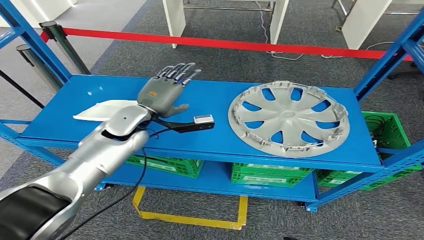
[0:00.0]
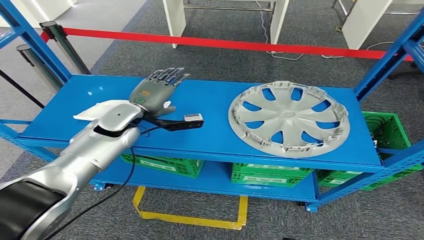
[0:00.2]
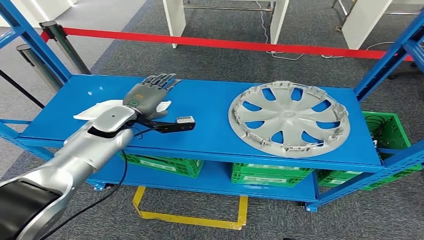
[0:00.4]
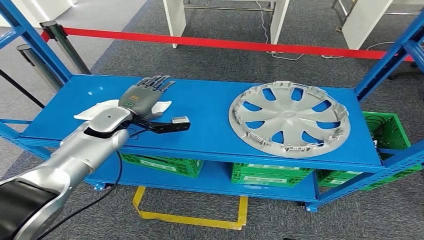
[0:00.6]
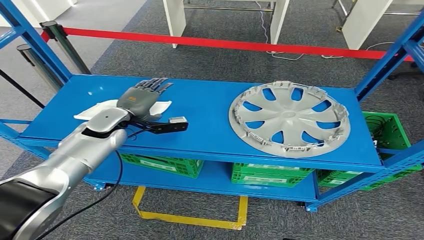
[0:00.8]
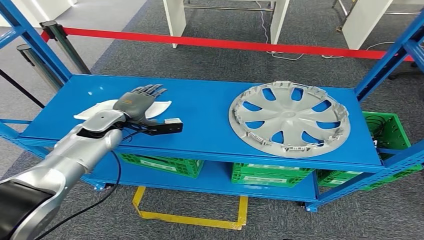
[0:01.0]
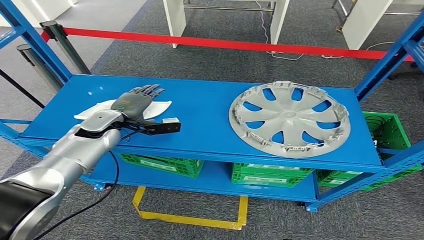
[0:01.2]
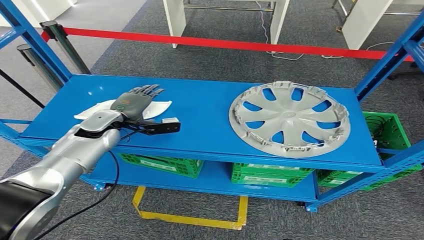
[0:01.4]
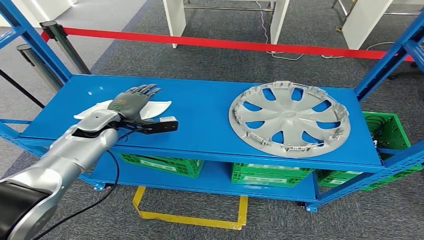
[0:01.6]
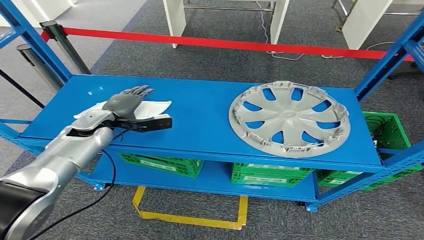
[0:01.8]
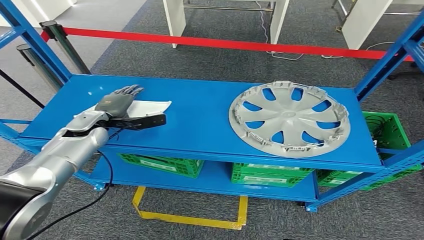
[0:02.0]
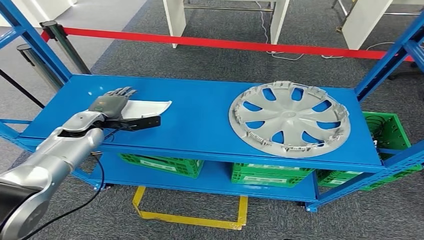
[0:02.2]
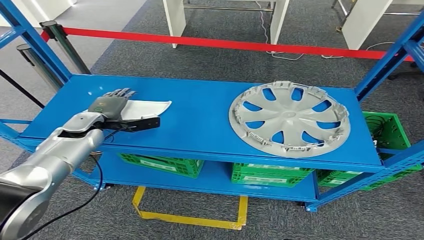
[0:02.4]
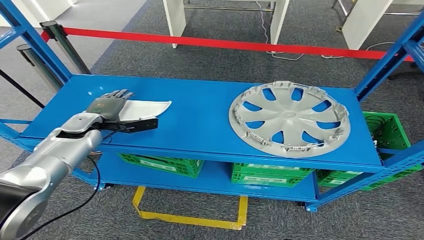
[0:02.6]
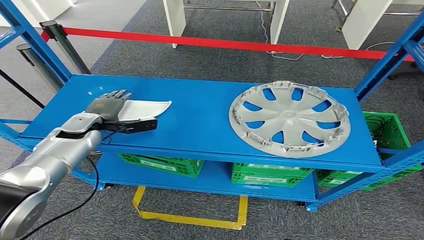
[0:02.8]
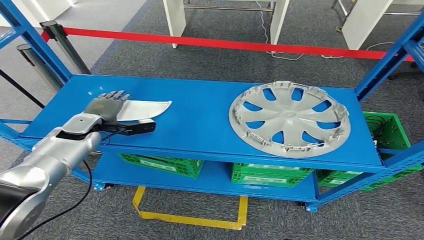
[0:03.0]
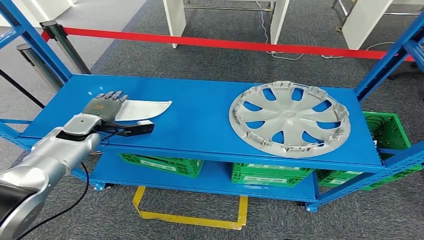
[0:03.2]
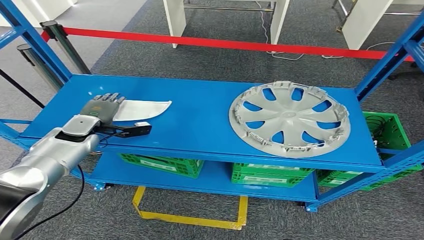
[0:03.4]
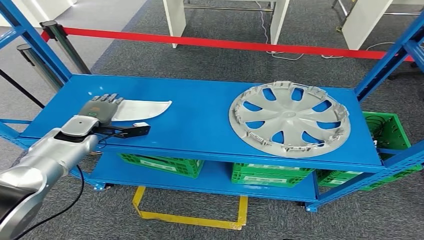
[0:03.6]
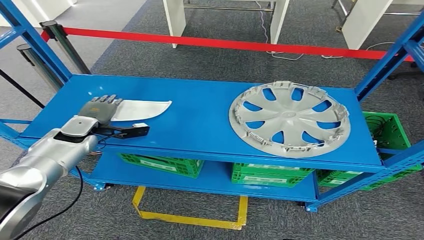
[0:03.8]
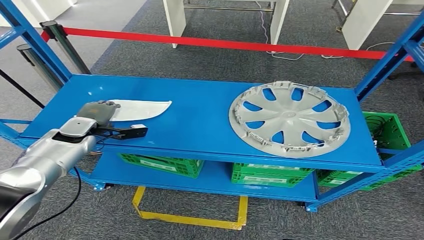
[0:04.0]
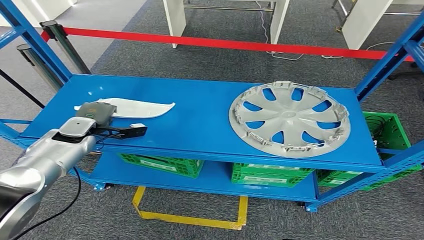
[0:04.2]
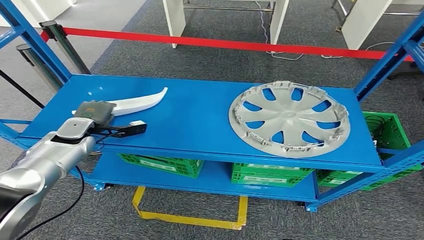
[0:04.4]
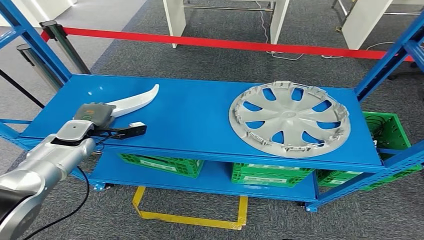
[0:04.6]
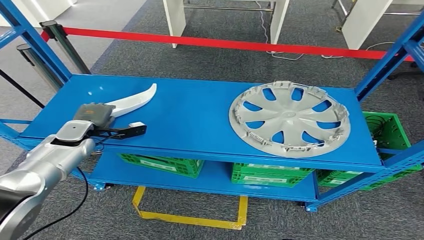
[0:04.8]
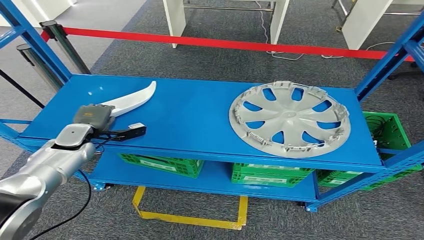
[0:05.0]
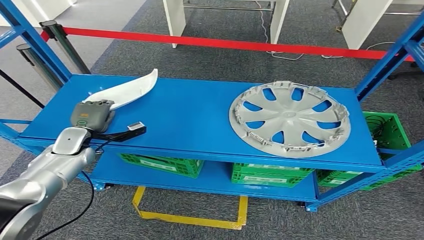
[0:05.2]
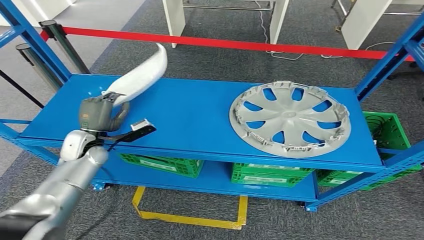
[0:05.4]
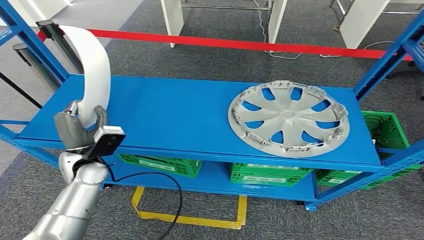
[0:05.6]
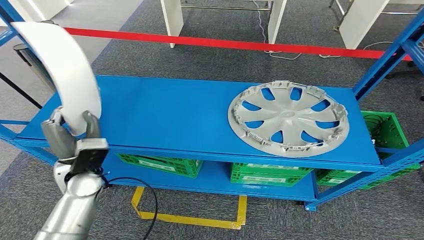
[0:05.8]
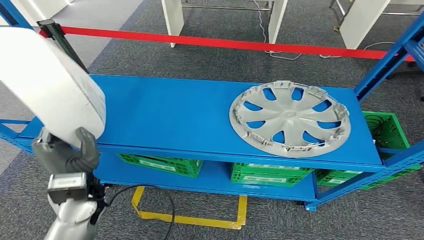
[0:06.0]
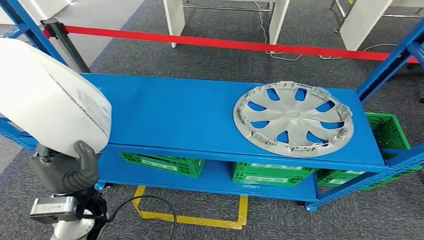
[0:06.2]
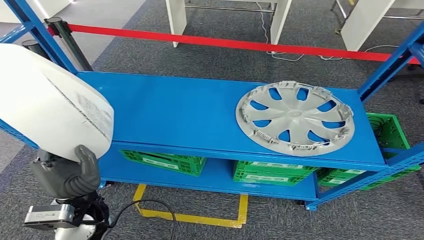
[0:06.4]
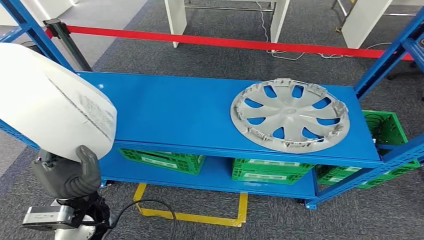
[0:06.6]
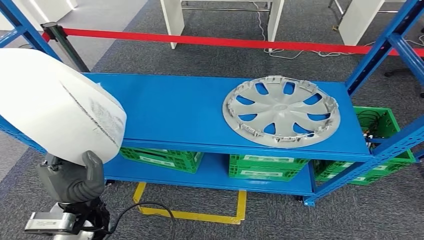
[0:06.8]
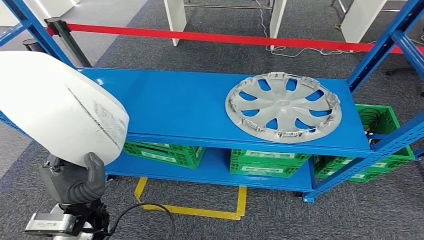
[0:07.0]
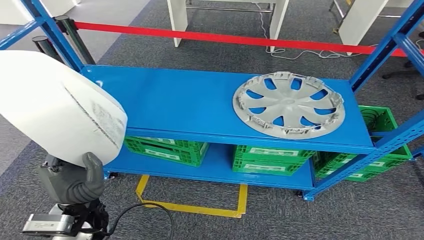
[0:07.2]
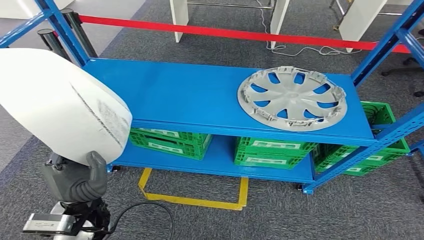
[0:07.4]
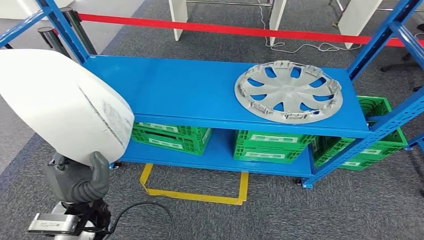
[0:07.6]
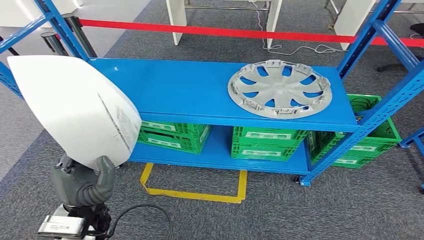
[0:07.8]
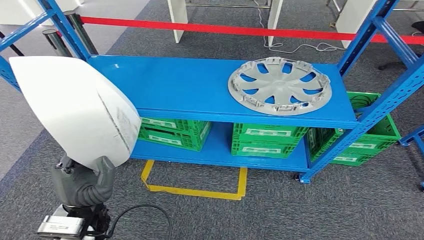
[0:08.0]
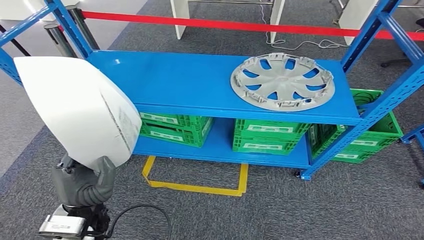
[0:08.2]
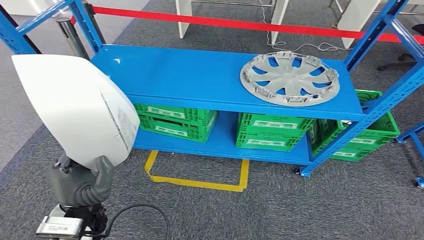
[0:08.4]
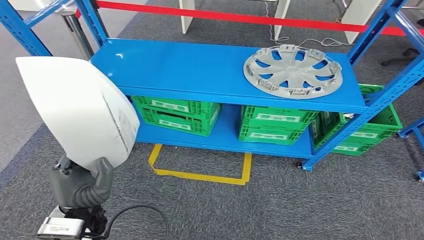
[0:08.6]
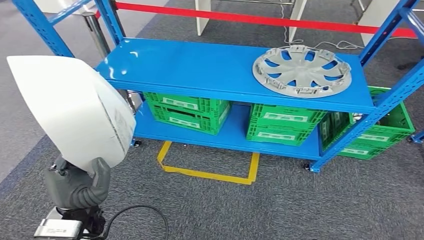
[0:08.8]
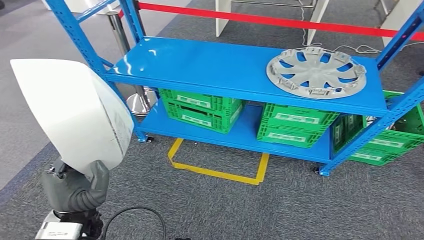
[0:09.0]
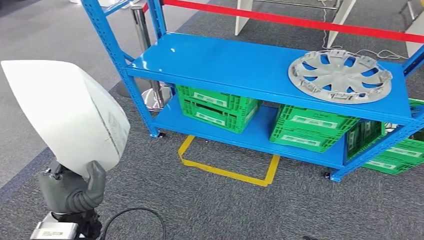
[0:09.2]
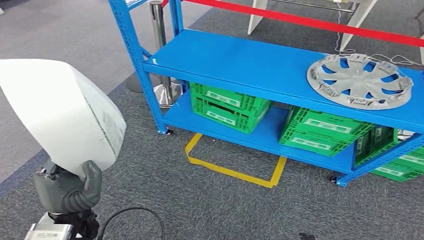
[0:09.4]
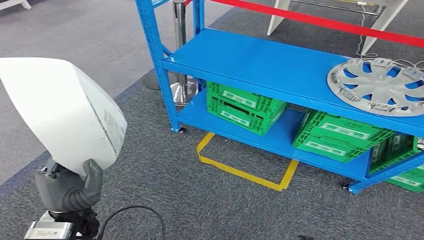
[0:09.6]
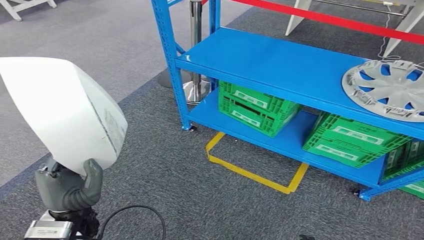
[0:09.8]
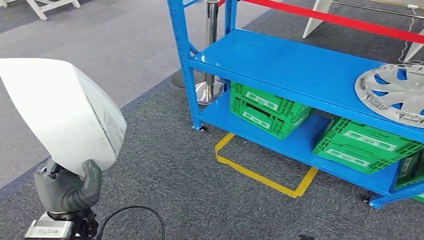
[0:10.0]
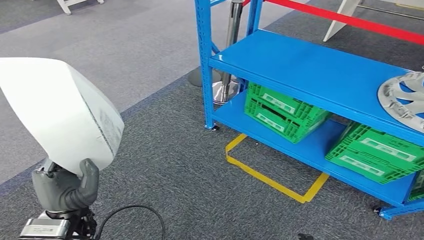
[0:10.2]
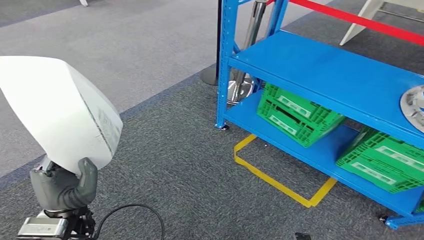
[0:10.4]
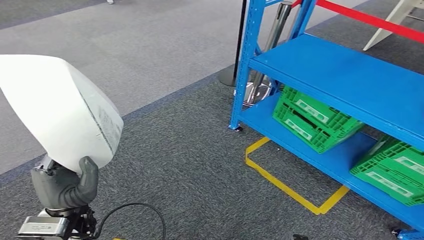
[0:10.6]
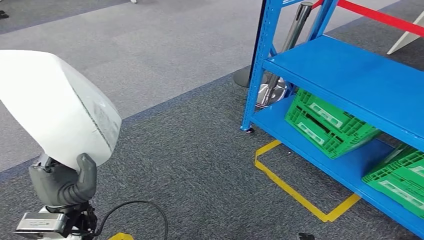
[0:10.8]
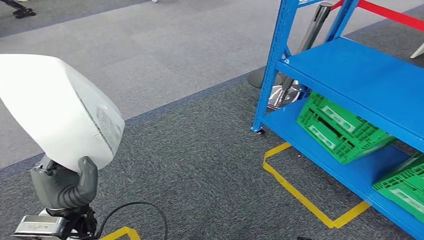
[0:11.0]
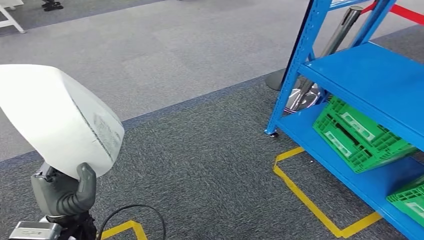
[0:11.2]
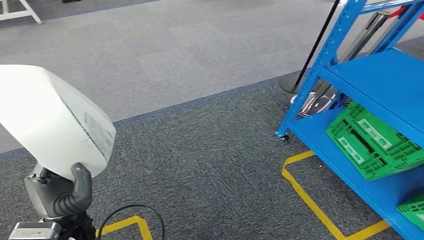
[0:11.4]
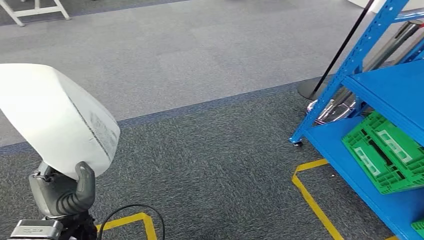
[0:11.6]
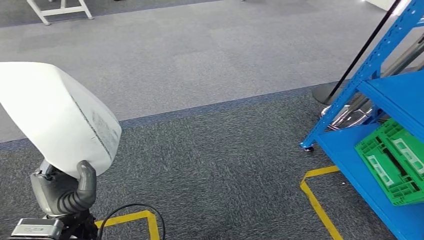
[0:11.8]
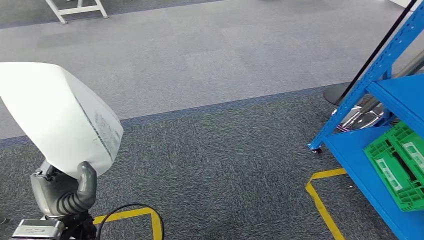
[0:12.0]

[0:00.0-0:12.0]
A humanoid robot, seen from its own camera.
Step, 0:00.0 to 0:06.2: Pick up the small component from the shelf.
0:00.0 to 0:01.6: The left hand heads to the left, covering roughly 10 cm.
0:01.6 to 0:03.0: The left hand heads to the left, covering roughly 5 cm.
0:03.0 to 0:04.4: The hands move only a little.
0:04.4 to 0:06.0: The left hand moves backward and to the right, approximately 20 cm.

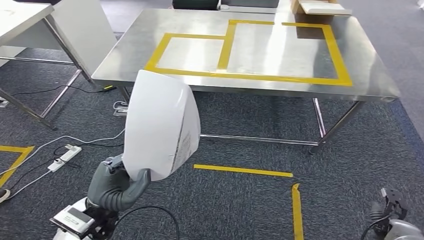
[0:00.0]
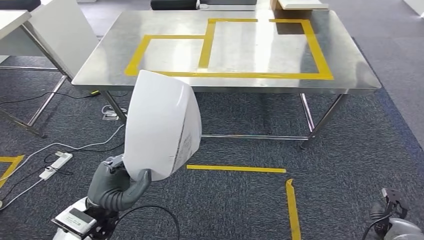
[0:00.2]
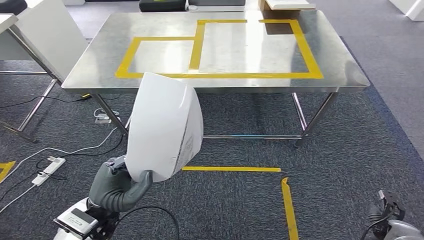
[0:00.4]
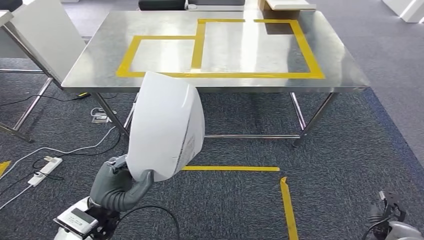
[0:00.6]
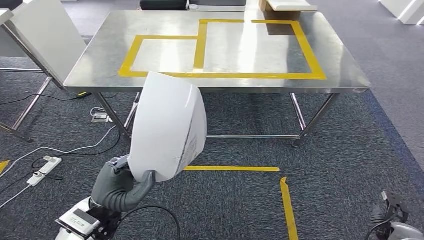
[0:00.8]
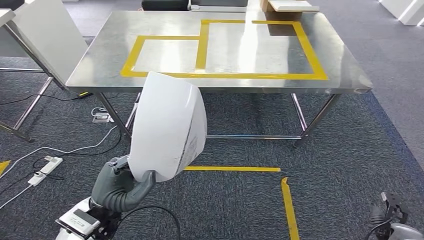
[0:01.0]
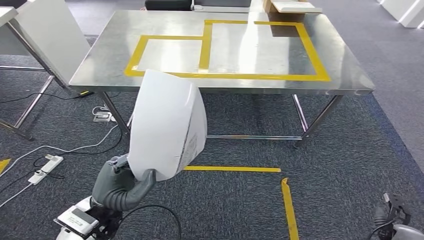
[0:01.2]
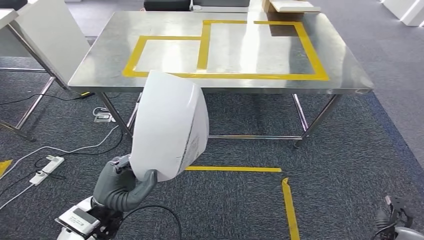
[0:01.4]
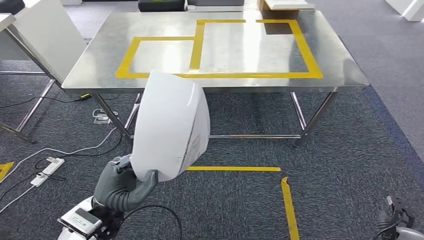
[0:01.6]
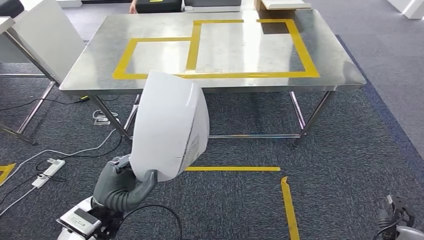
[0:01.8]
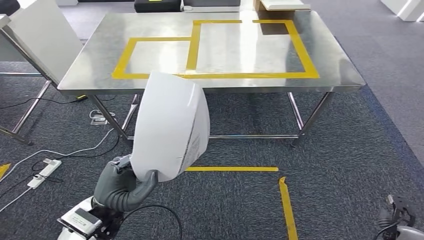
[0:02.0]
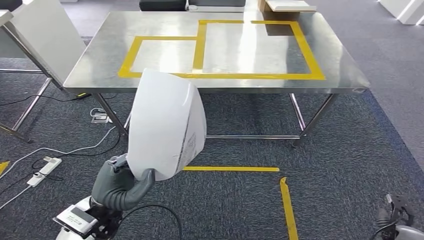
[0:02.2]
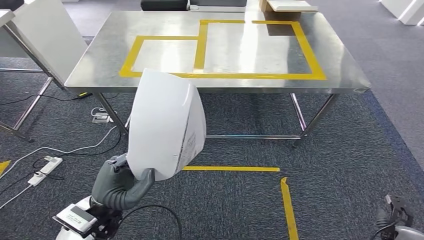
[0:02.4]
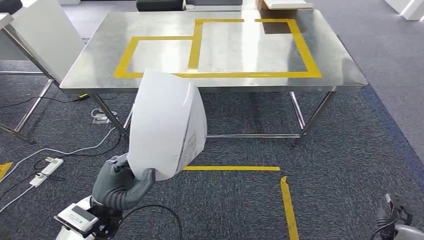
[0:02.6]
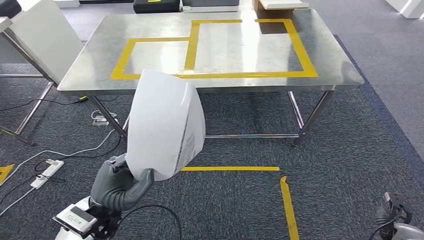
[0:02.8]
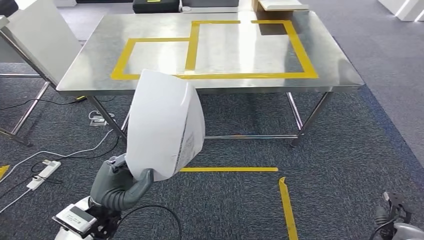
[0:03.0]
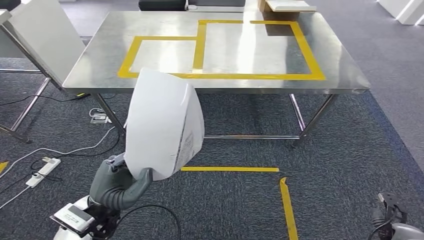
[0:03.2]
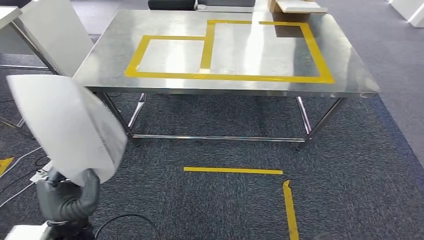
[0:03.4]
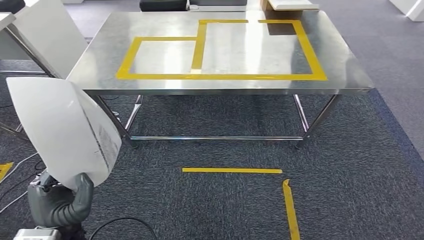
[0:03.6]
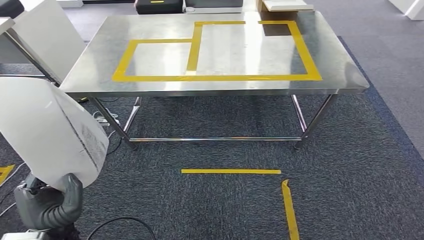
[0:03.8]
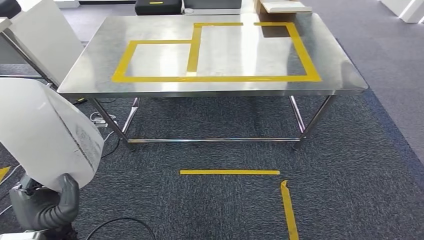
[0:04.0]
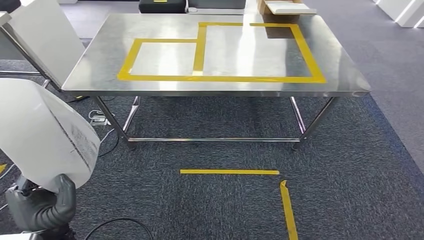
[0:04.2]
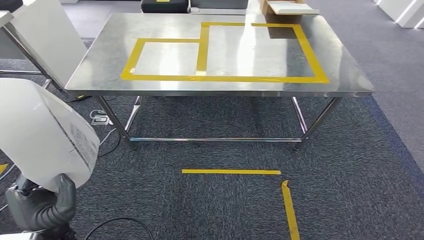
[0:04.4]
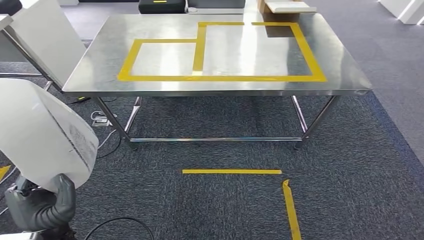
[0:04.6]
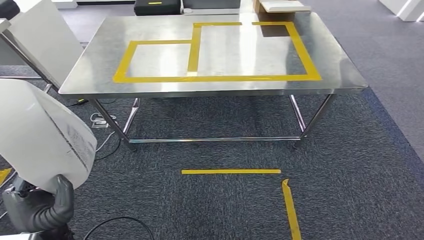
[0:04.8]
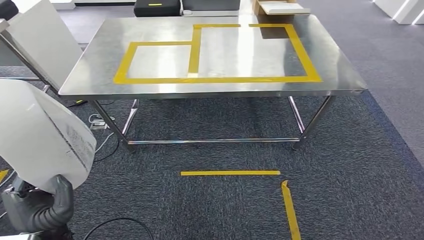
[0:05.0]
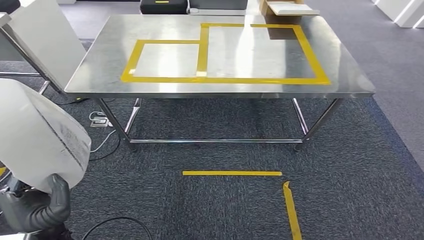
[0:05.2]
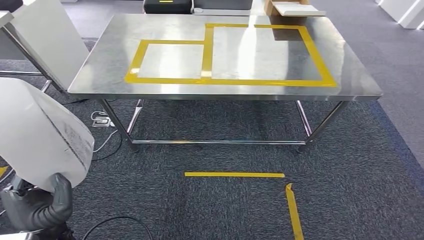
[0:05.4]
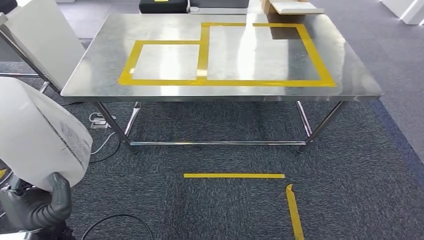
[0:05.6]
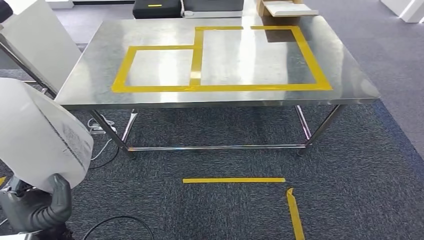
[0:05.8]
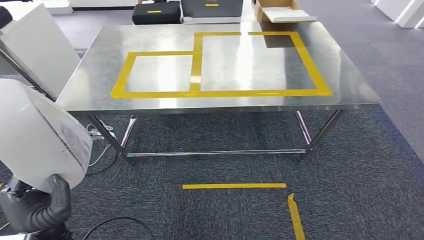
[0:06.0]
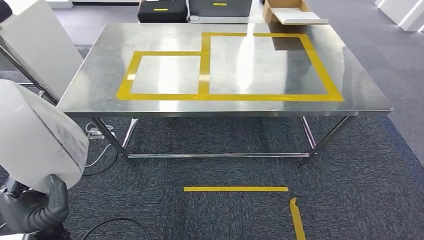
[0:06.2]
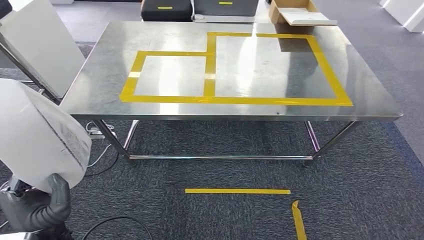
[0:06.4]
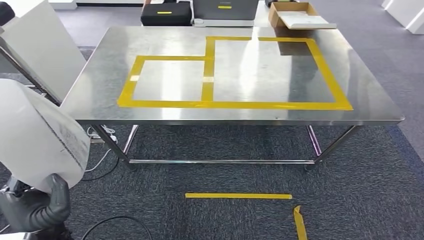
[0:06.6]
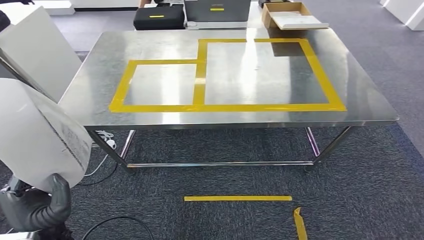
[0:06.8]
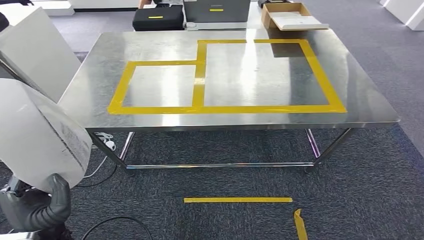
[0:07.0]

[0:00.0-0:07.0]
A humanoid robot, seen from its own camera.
Step, 0:00.0 to 0:02.4: Bring the small component to the front of the workbench.
0:01.4 to 0:02.8: Both hands stay about where they are.
0:04.2 to 0:05.6: There are only small adjustments of the hands.
